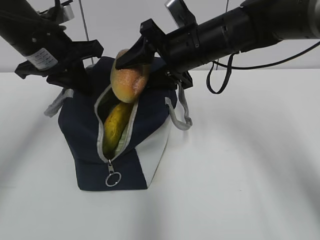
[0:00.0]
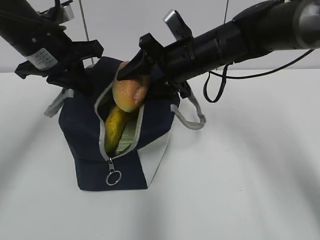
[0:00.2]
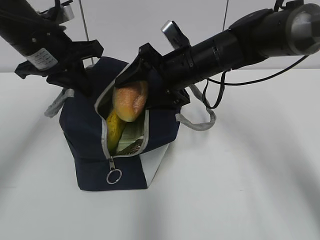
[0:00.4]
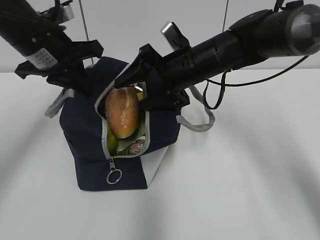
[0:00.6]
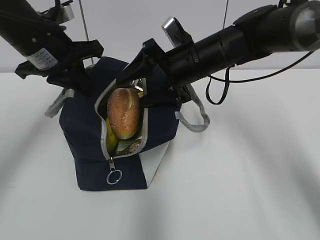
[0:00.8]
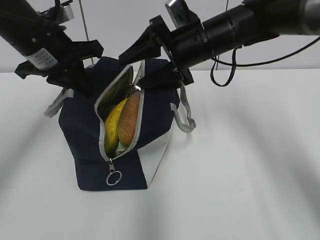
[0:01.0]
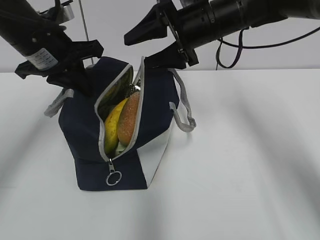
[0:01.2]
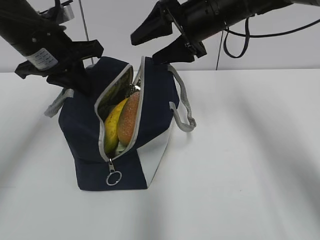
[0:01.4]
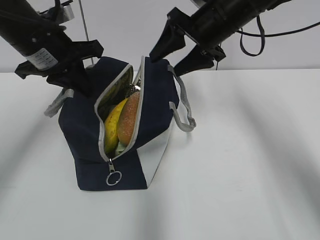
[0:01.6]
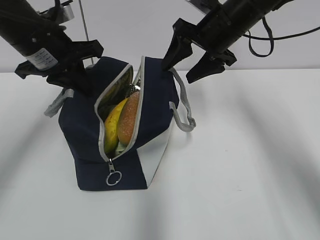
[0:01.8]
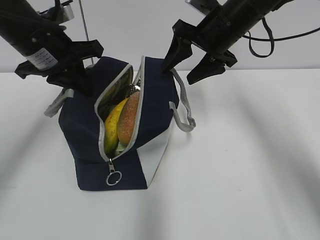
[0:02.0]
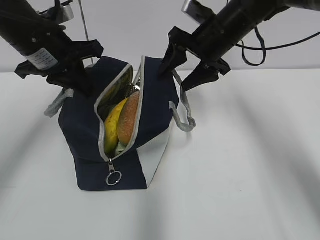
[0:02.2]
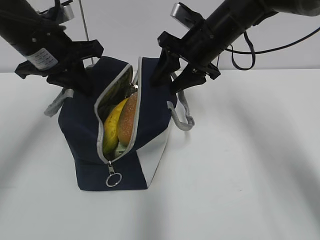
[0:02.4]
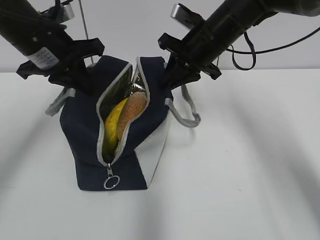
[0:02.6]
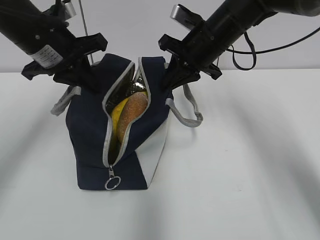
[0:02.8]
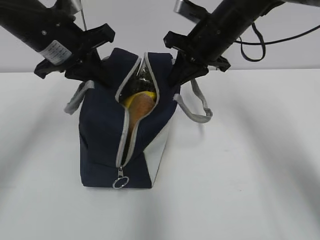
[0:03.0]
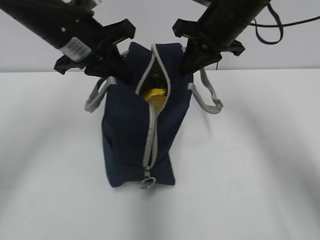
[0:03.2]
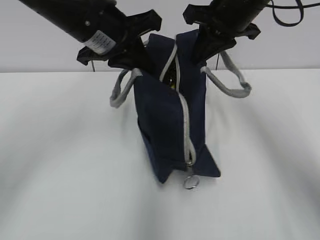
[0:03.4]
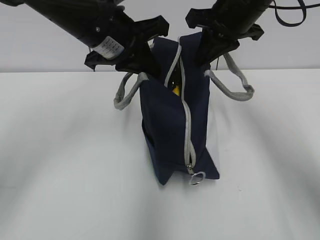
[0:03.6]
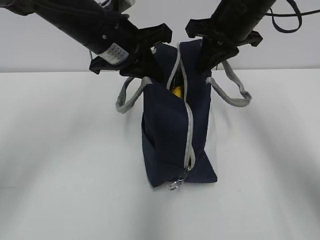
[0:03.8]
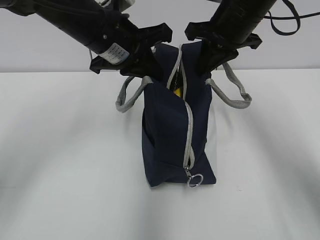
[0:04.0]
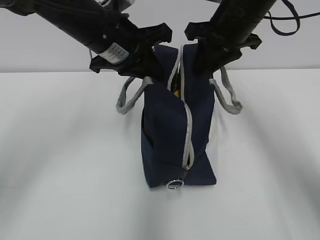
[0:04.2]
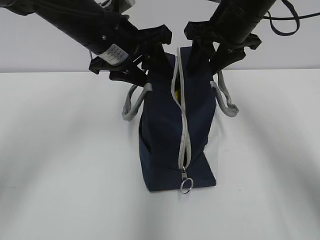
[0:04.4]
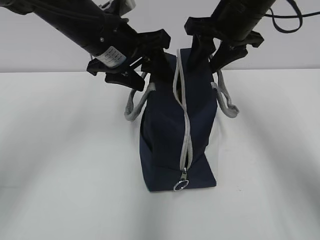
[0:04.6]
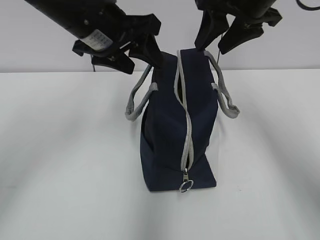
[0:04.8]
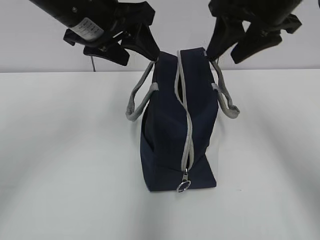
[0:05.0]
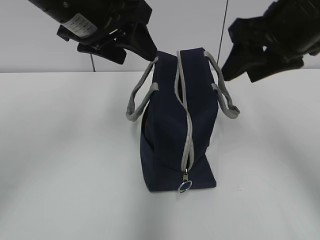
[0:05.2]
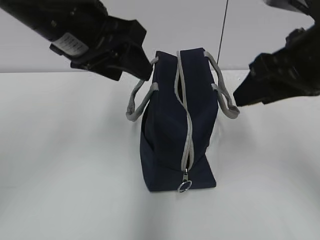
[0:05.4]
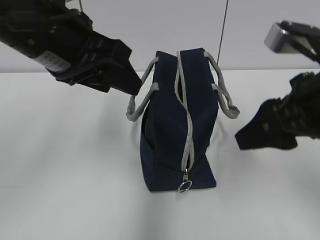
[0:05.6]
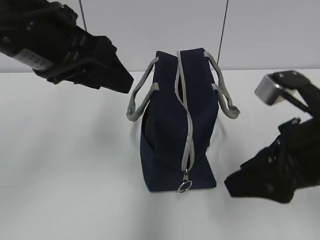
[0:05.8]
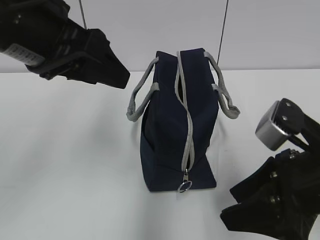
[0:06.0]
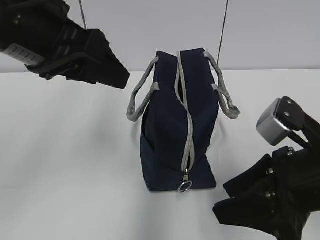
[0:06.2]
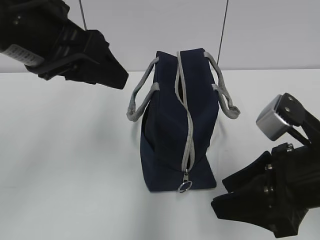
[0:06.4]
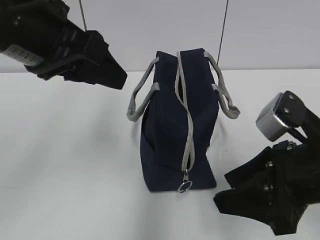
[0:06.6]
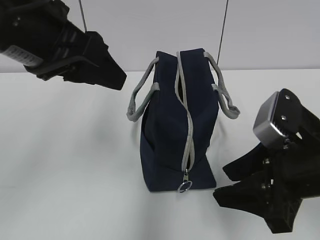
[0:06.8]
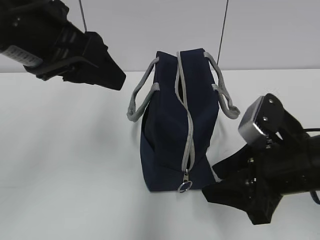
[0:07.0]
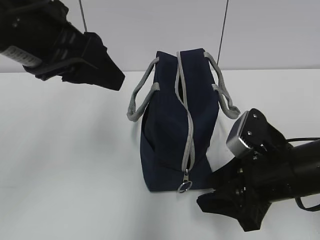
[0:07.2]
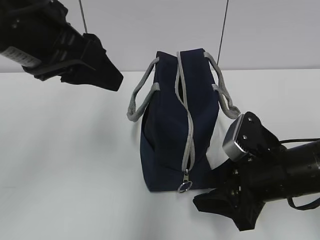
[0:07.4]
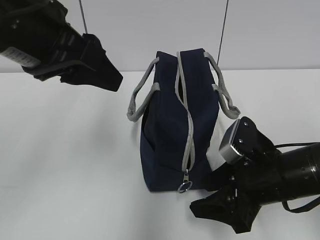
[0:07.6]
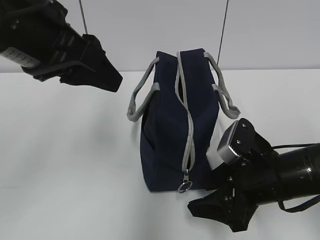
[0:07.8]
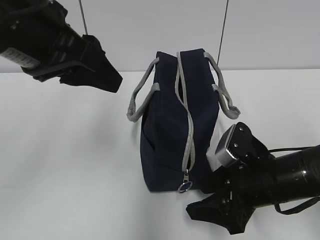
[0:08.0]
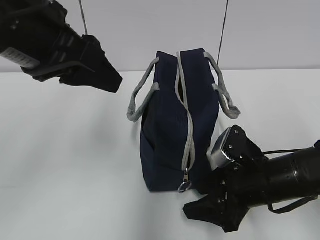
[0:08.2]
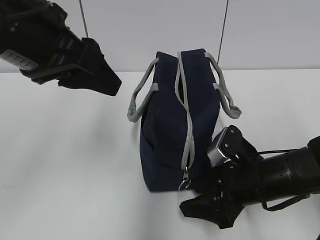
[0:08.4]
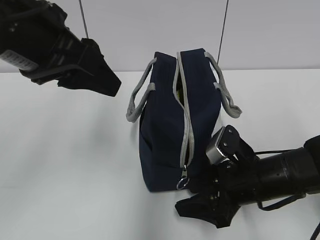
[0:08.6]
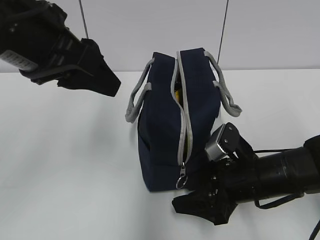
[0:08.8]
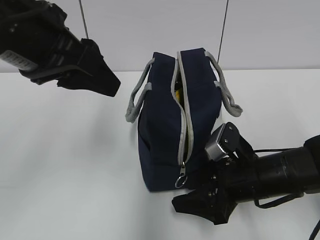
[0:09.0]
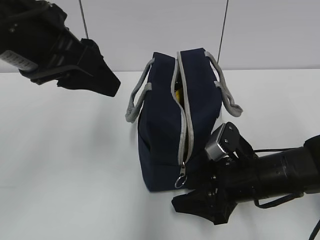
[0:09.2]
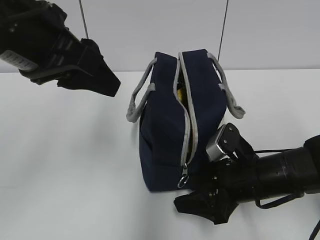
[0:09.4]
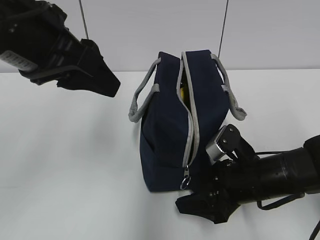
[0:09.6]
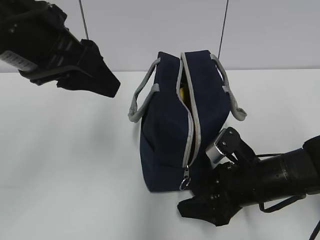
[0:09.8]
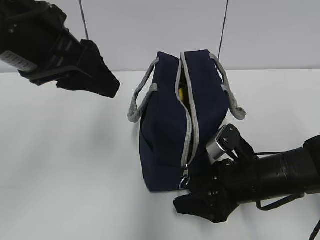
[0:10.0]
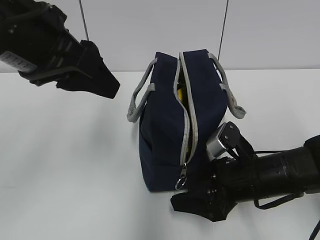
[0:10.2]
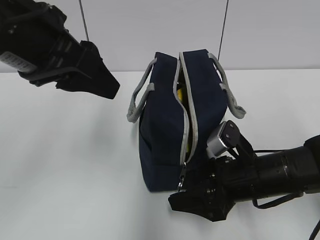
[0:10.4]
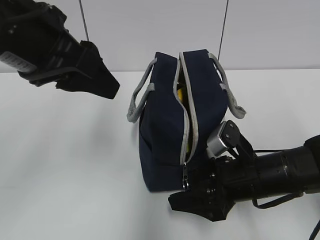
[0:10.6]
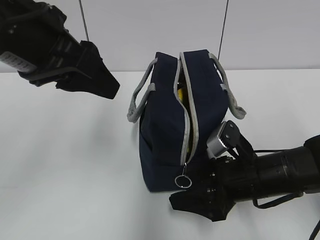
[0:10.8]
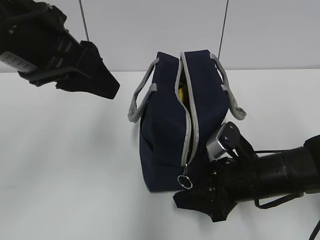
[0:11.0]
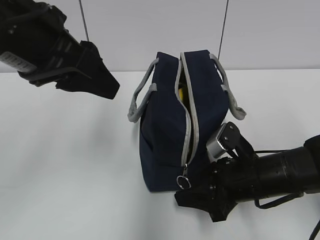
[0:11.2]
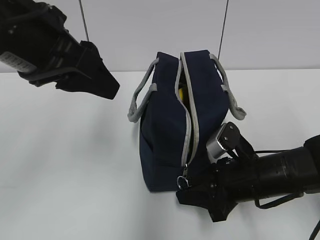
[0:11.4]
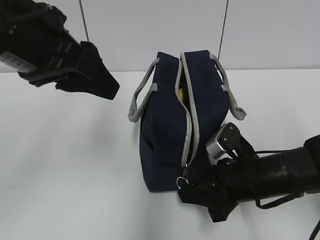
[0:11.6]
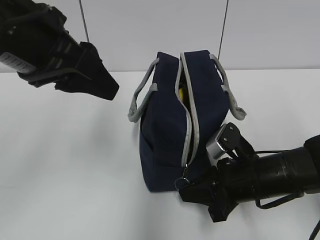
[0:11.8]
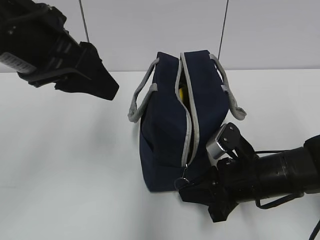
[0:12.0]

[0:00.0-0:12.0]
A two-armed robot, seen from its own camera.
Step, 0:01.0 to 0:02.8: Grab the lunch bag with your right hand.
Step, 0:03.0 to 0:04.4: Move the lunch bag to the right.
0:00.0 to 0:01.6: The right gripper shifts by some 5 cm.
0:01.6 to 0:03.0: The right gripper closes.
0:03.0 to 0:04.4: The right gripper ends up approximately 5 cm from where it was, and opens up. Meanwhile the left gripper travels to the right by some 10 cm, and opens.
0:04.4 to 0:06.0: The right gripper heads backward, covering roughly 25 cm. Meanwhile the left gripper goes roughly 15 cm backward, upward and to the left.
0:06.0 to 0:07.6: The right gripper is displaced downward by about 5 cm.
0:07.6 to 0:10.4: The grippers stay close to where they were, moving slightly.
0:10.4 to 0:12.0: The right gripper closes.

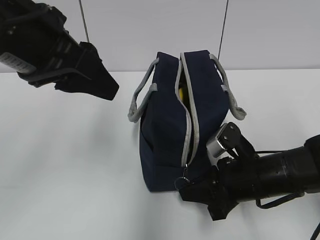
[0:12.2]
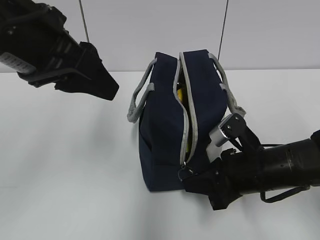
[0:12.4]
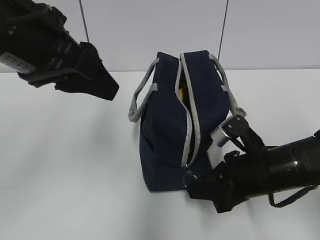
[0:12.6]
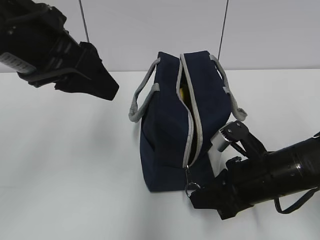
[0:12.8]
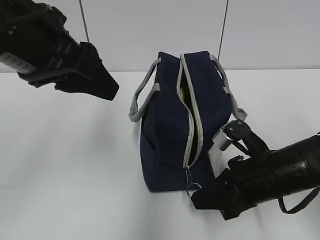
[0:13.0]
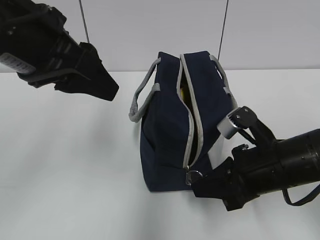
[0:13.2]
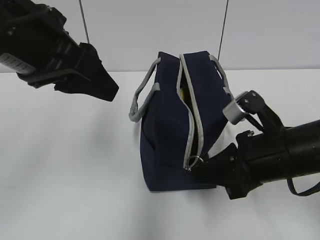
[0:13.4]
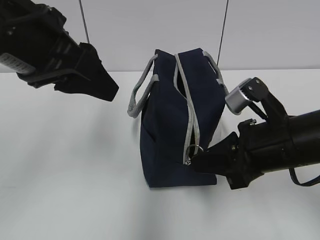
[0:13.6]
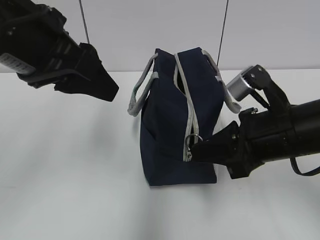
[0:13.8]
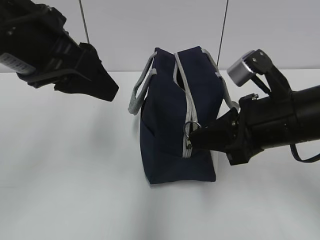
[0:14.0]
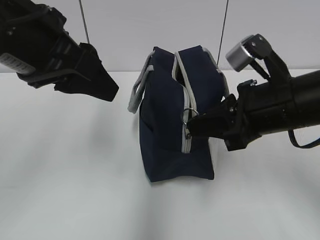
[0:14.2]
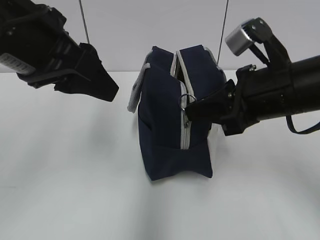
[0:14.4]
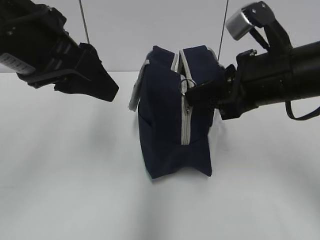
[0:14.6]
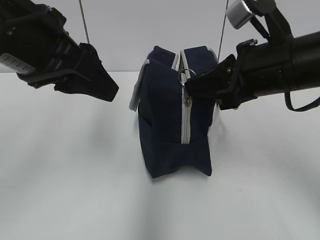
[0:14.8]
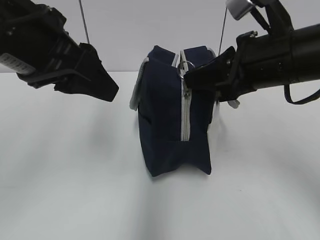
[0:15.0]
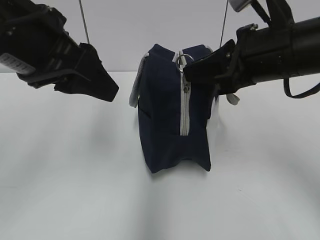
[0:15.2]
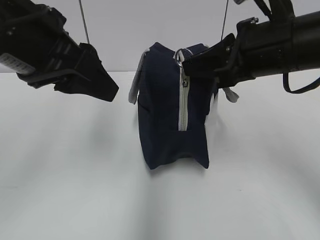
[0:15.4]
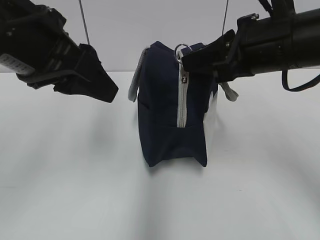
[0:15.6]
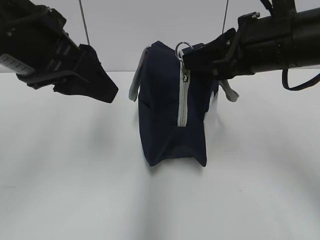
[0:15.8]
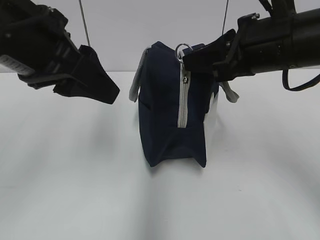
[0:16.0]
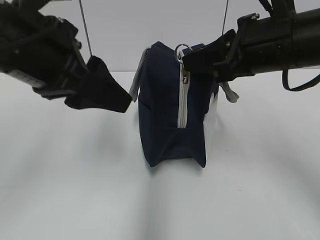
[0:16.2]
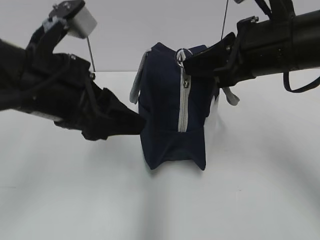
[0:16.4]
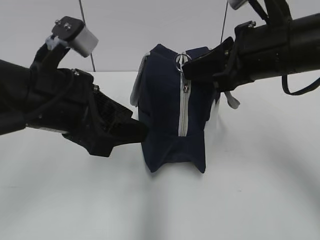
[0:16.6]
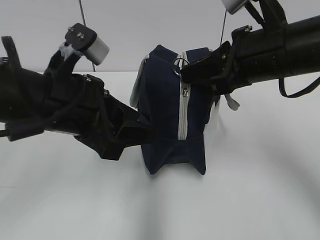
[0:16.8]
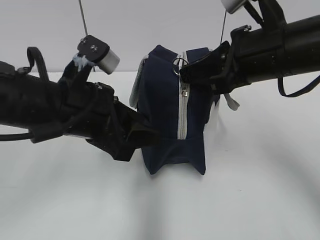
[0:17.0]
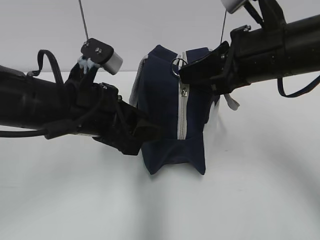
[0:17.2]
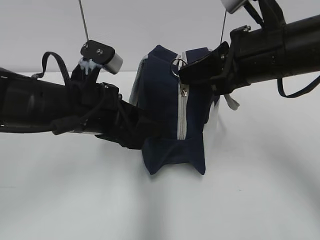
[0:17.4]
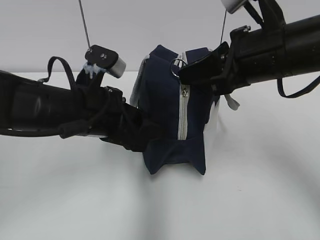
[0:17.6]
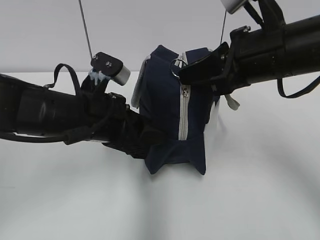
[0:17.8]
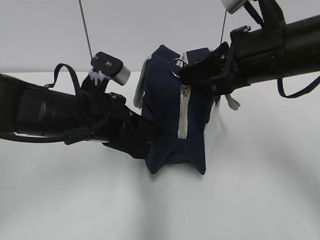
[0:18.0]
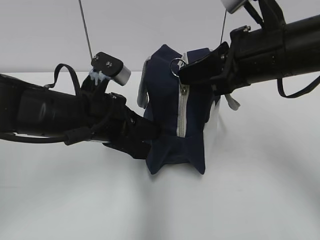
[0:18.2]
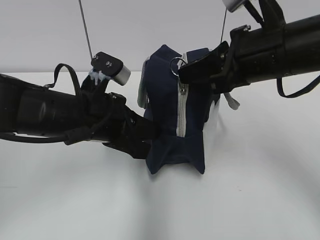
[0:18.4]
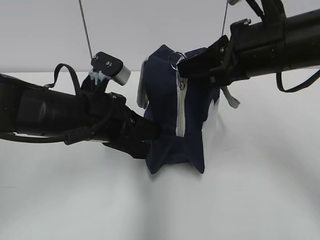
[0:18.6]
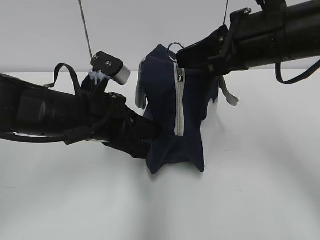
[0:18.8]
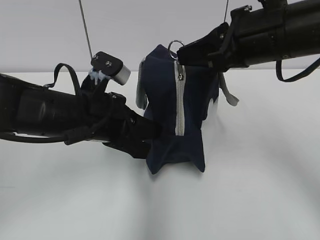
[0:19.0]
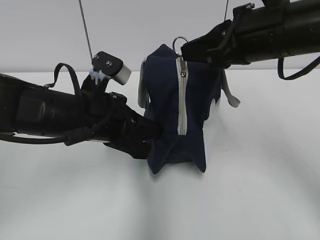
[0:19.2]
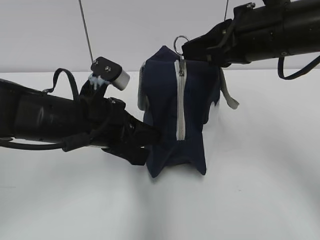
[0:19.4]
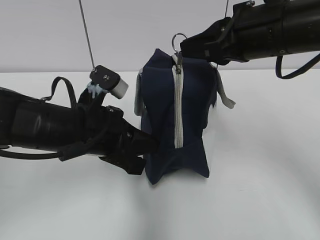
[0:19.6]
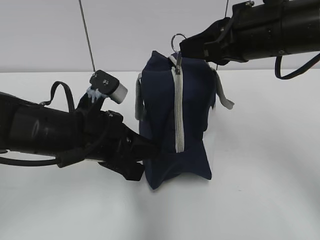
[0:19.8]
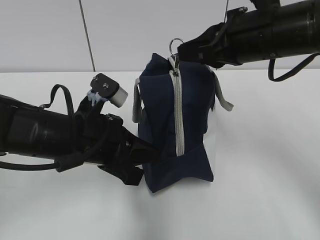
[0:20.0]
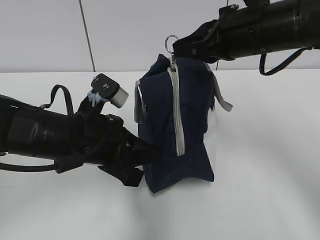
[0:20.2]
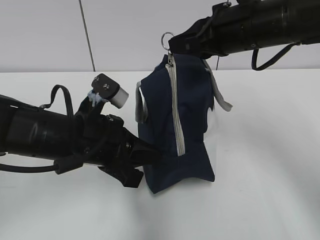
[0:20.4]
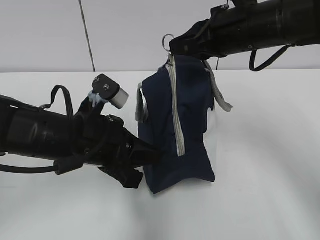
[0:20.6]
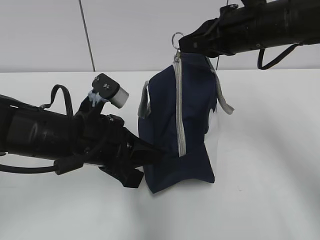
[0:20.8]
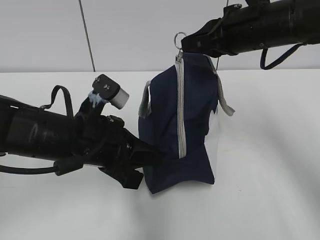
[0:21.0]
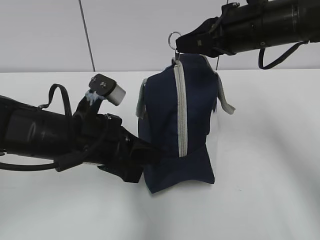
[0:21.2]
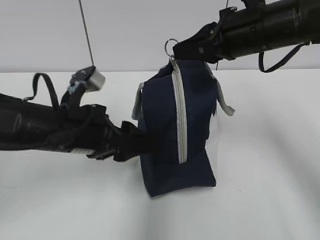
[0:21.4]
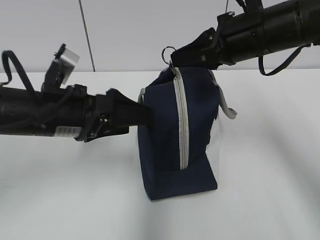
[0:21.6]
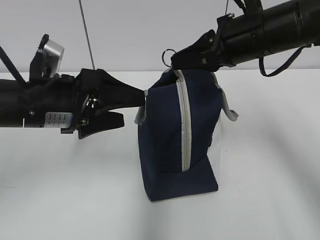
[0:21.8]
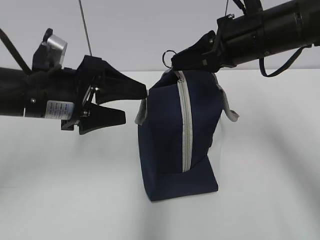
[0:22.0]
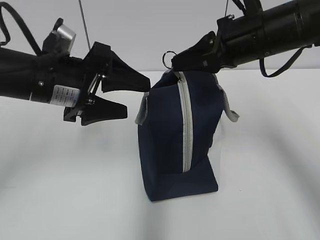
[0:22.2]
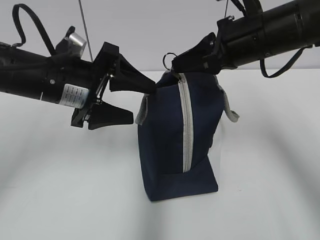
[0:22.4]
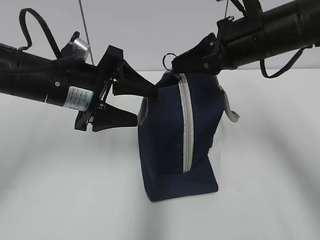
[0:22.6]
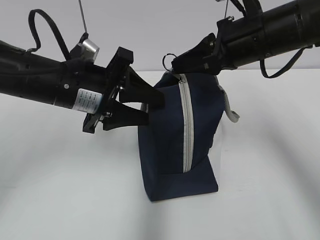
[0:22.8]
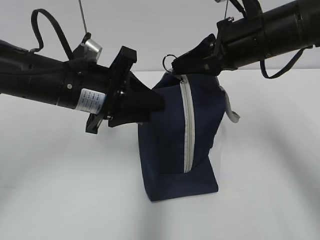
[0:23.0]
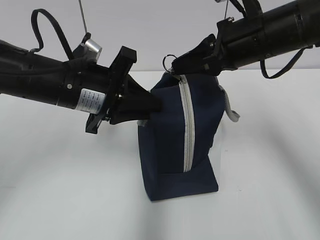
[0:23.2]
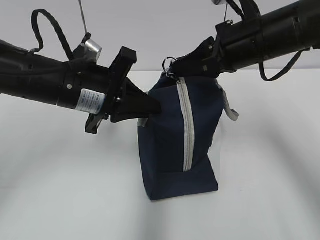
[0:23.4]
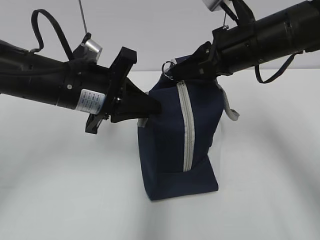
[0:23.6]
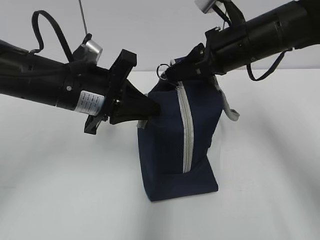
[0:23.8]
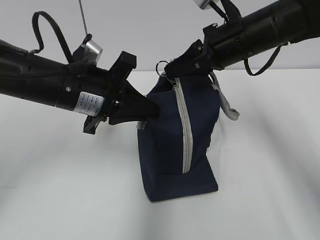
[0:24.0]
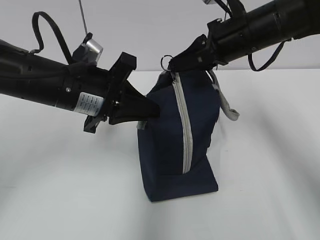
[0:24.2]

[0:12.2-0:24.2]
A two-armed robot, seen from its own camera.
Step, 0:12.2 to 0:21.0: Grab the lunch bag with your left hand.
0:12.2 to 0:13.8: The right gripper moves upward, some 10 cm.
0:13.8 to 0:15.2: The right gripper goes some 10 cm upward.
0:15.2 to 0:16.6: The left gripper shifts roughly 5 cm downward.
0:16.6 to 0:18.2: The left gripper heads downward, covering some 5 cm, and closes its fingers.
0:19.8 to 0:21.2: The right gripper heads forward, covering some 5 cm.
0:21.2 to 0:22.6: The left gripper goes some 5 cm forward, and opens.
0:22.6 to 0:24.2: The left gripper closes.
